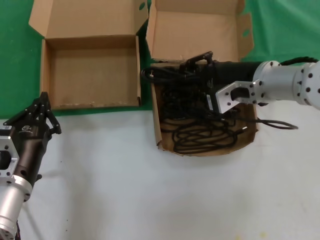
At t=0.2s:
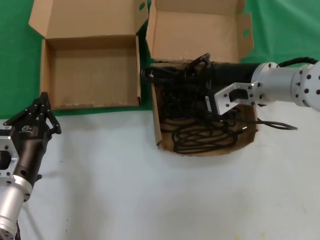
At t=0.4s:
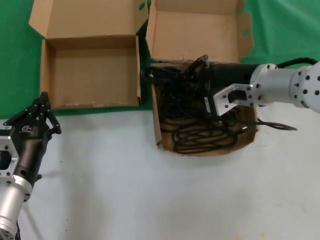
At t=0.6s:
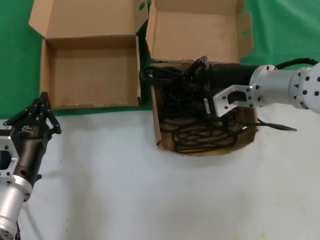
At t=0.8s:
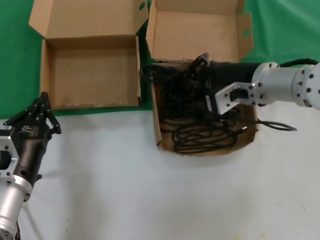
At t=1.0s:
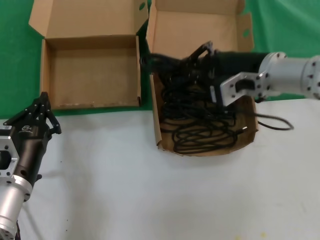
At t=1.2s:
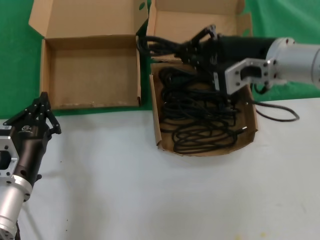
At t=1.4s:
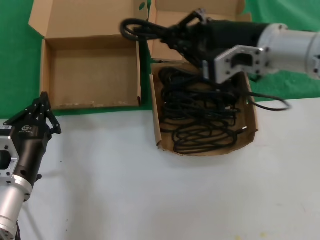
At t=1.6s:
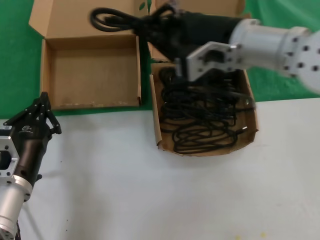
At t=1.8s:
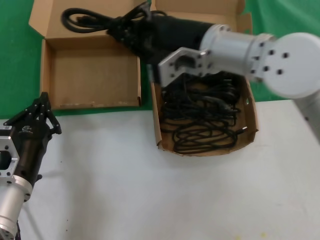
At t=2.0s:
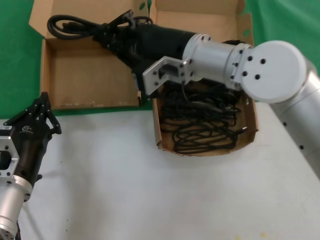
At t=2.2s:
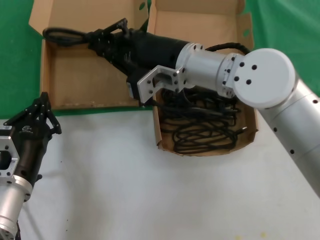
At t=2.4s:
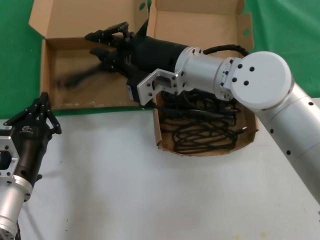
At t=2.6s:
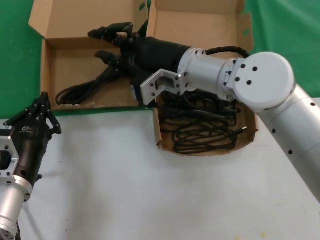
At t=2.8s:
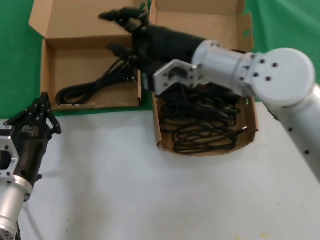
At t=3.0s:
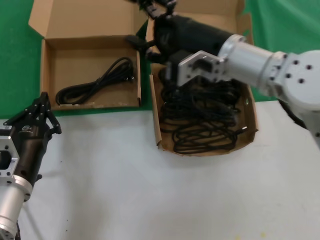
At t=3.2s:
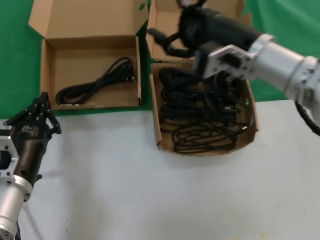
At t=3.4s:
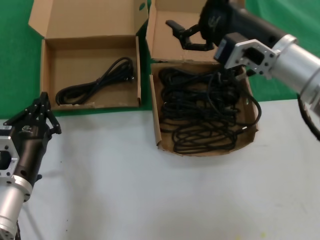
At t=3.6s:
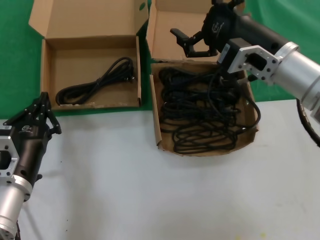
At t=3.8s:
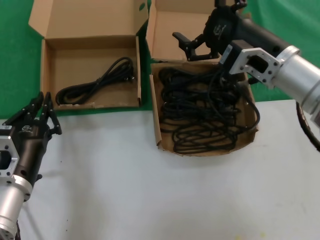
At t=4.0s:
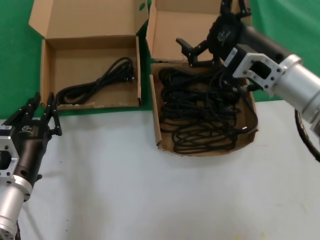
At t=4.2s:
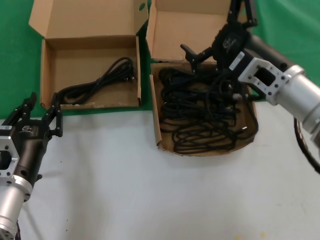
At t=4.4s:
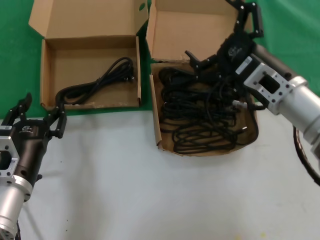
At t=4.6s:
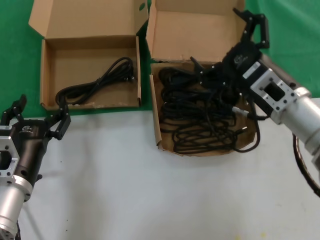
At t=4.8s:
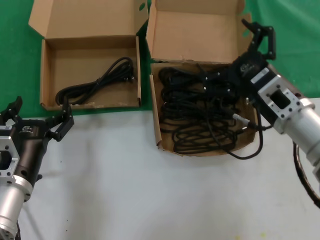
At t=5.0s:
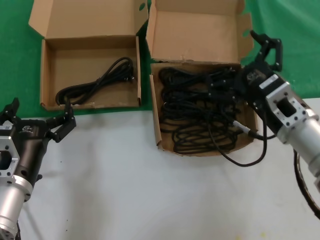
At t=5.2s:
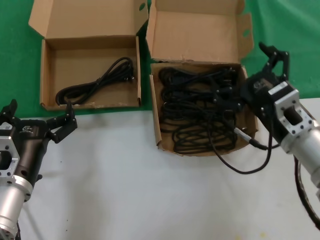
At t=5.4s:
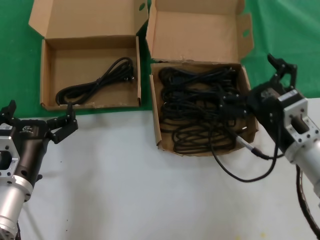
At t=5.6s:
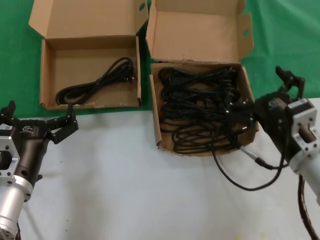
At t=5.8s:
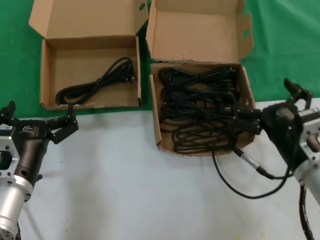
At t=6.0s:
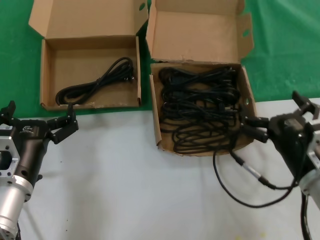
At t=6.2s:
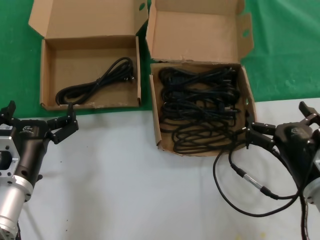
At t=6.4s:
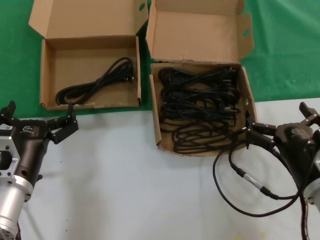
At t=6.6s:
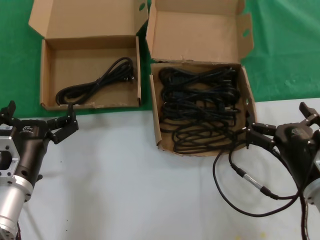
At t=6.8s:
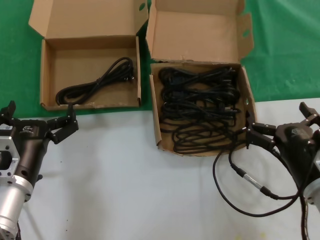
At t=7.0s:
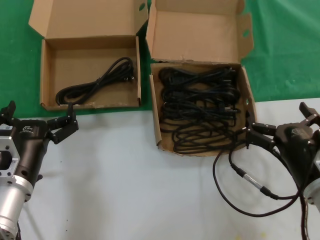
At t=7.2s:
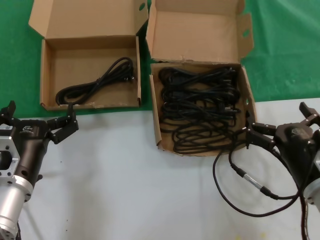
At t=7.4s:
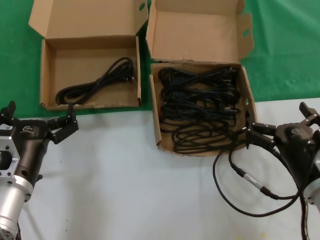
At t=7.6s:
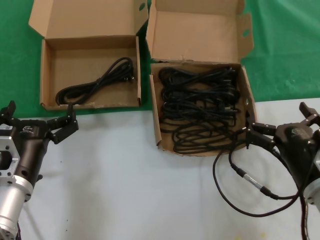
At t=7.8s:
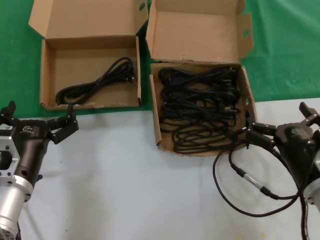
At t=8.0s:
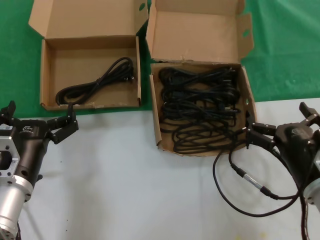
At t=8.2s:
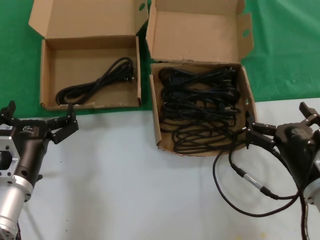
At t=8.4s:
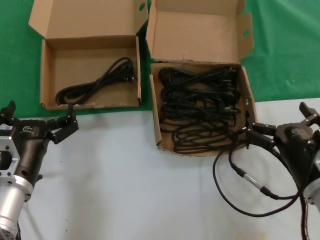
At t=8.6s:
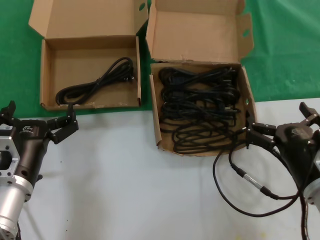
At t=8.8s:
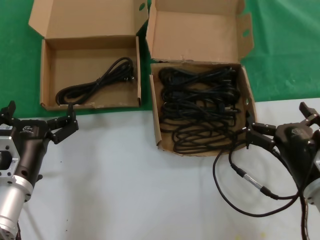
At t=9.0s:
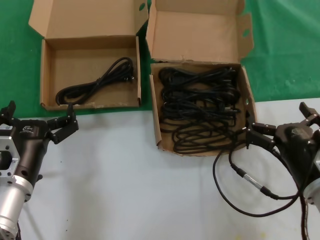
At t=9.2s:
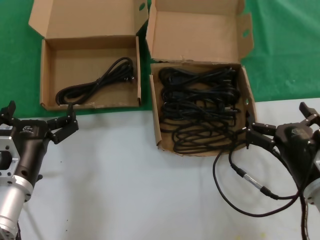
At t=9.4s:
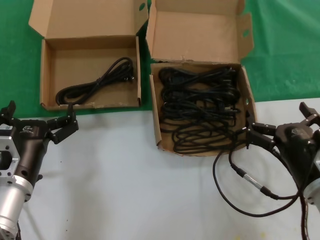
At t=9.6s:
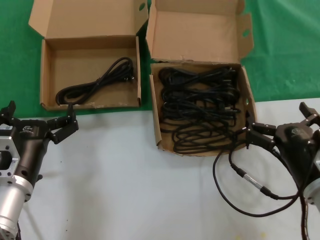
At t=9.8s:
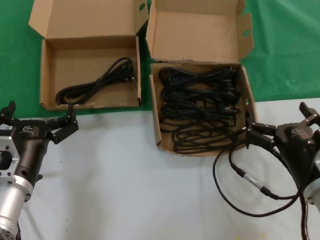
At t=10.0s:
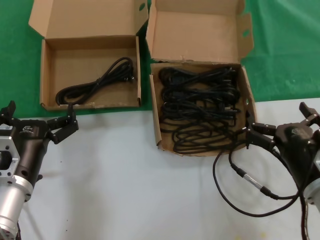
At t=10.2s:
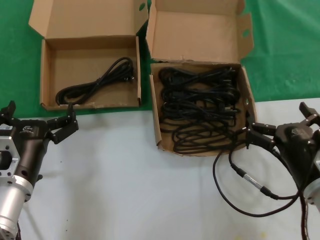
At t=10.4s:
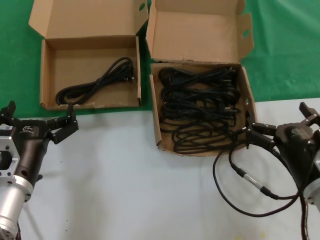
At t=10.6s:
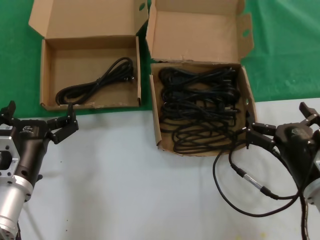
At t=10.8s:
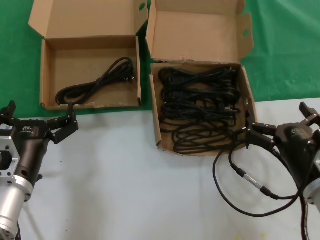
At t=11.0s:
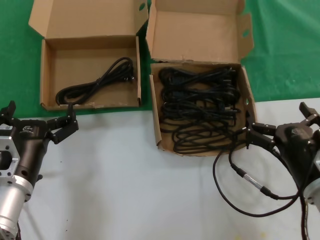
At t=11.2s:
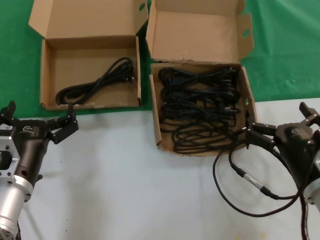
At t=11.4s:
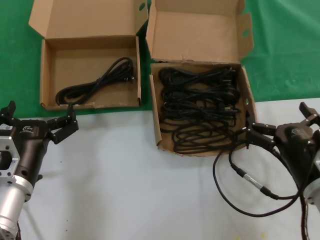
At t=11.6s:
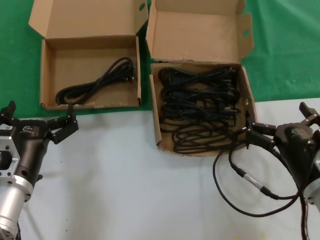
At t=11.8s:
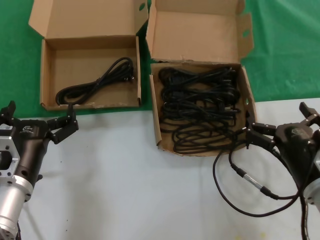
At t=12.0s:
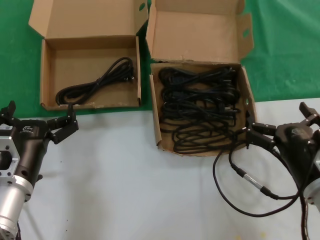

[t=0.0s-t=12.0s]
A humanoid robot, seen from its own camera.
Task of the whole recording: take the parts from the box containing them and put them into an empty box.
Step, t=0.6s to t=2.4s: Place the data cable in the another box.
t=0.0s to t=1.6s: The right hand moves upward, some 5 cm.
t=1.6s to t=3.0s: The right hand travels to the left and back again, approximately 10 cm each way.
t=3.0s to t=4.4s: The right hand shifts some 10 cm to the right and downward.
t=4.4s to t=6.0s: The right hand travels downward and backward by about 15 cm.
t=6.0s to t=7.6s: The hands move only a little.
t=7.6s to t=12.0s: Both hands stay put.

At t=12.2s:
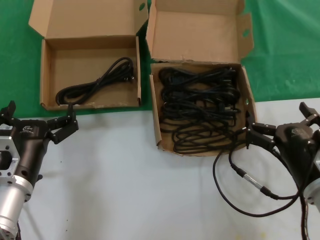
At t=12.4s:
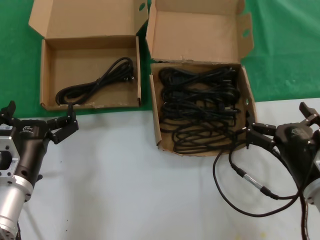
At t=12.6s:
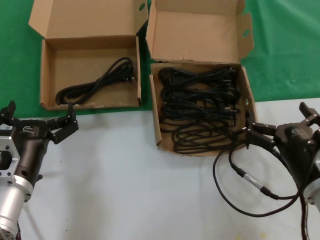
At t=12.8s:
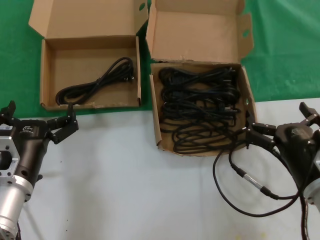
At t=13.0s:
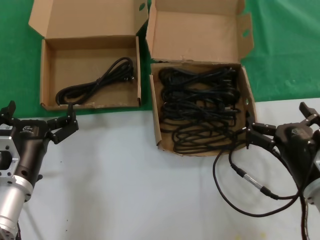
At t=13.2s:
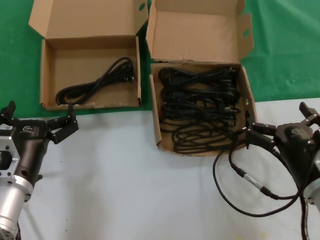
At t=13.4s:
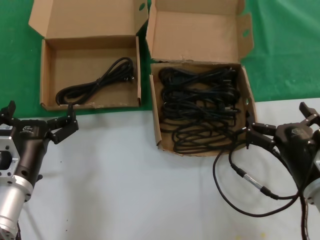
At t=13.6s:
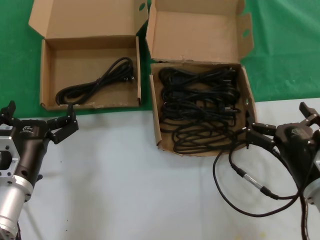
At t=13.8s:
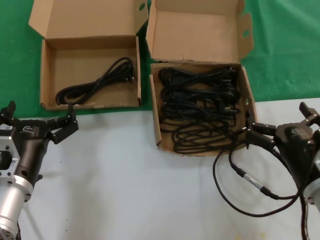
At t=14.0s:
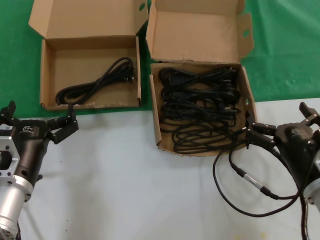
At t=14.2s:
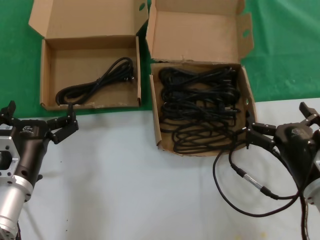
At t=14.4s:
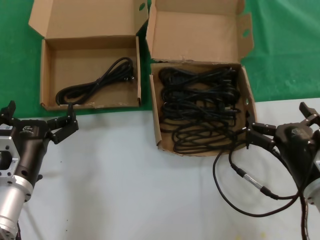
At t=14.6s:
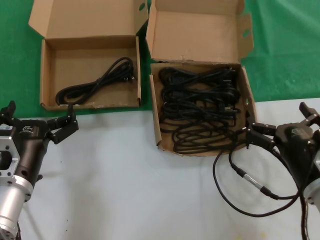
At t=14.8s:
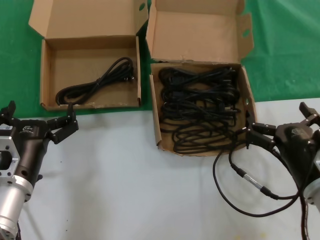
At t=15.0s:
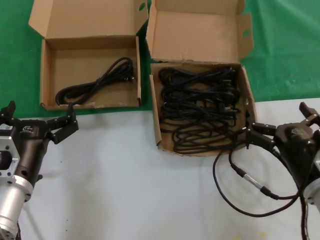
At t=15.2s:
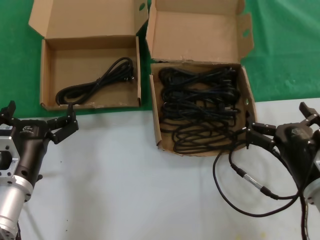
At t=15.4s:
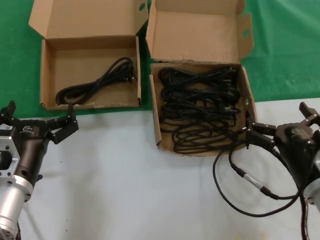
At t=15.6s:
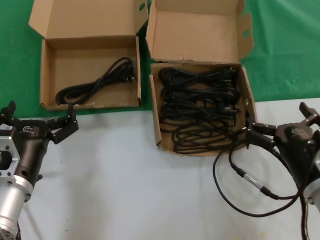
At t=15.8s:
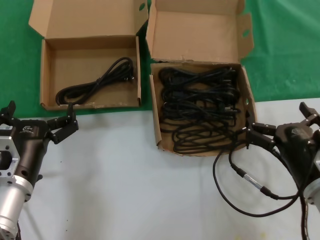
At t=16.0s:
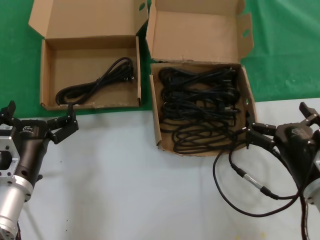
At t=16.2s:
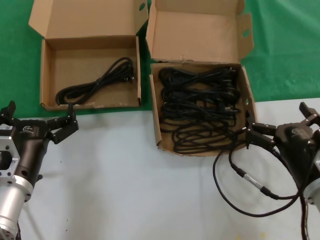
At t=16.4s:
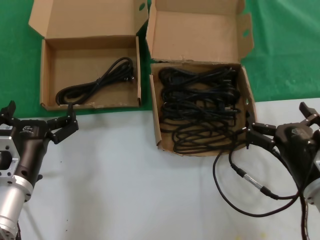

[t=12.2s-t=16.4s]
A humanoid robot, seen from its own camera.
Task of the whole recording: take the parts from the box containing them and put them into an empty box.
t=12.2s to t=16.4s: The two hands keep their place.
